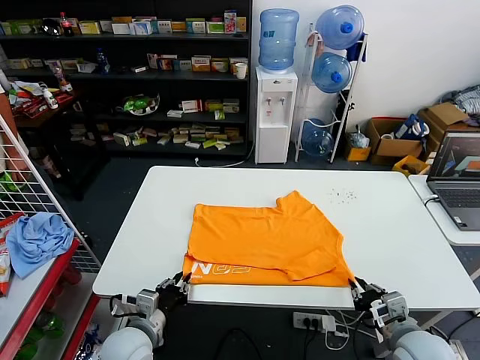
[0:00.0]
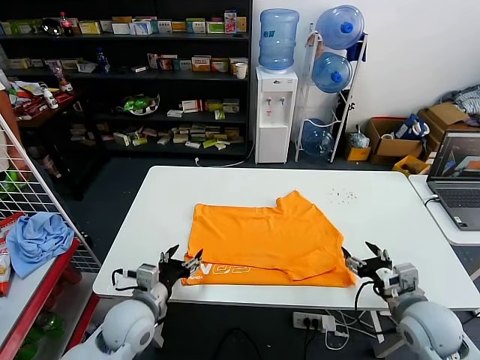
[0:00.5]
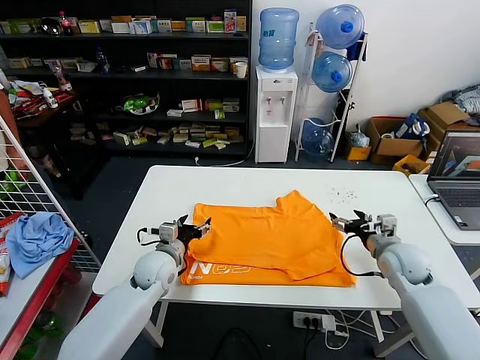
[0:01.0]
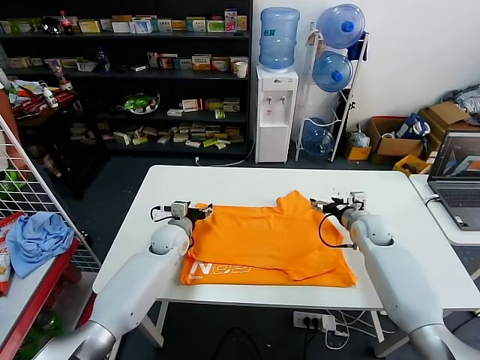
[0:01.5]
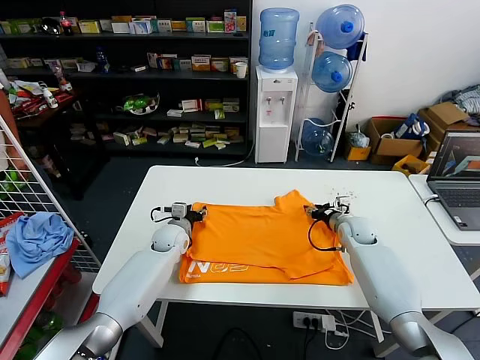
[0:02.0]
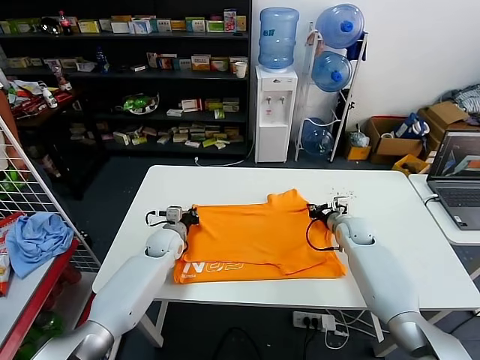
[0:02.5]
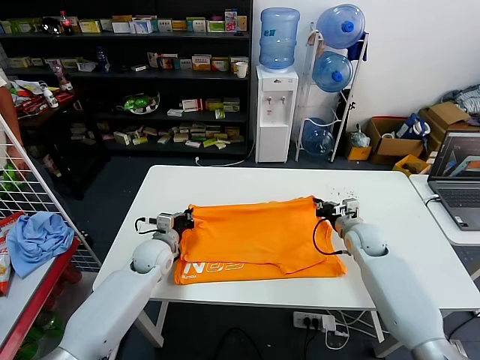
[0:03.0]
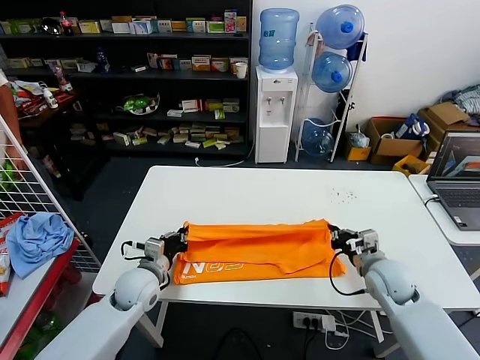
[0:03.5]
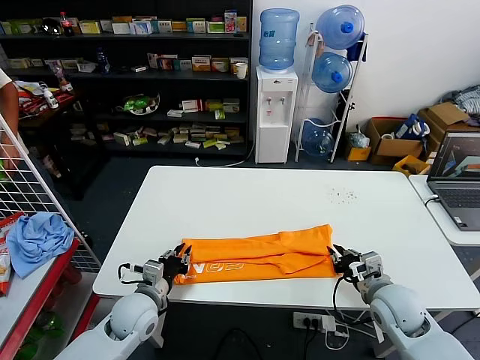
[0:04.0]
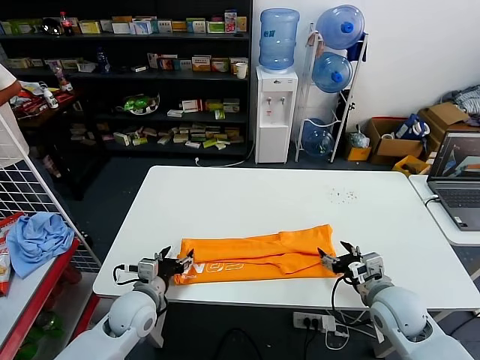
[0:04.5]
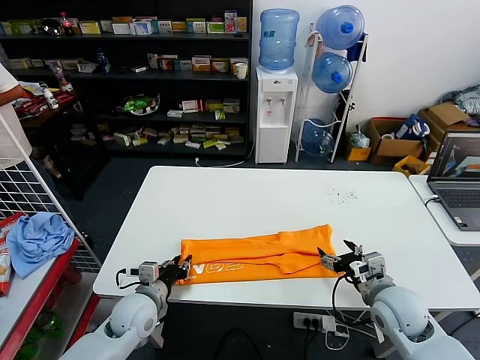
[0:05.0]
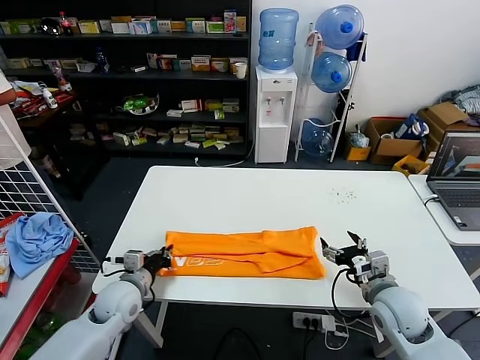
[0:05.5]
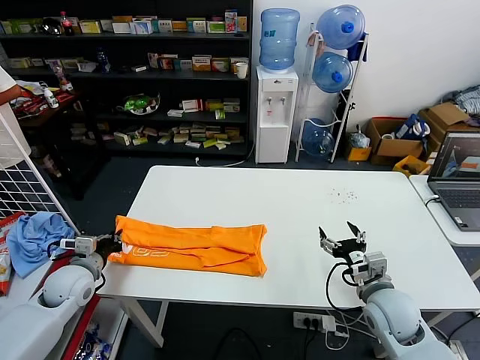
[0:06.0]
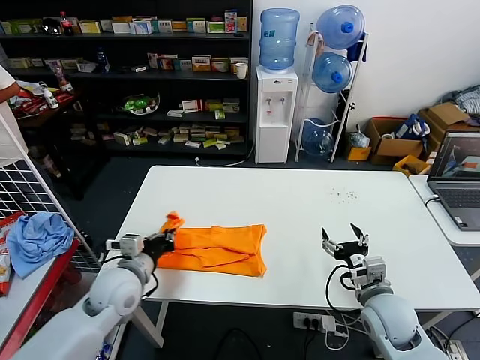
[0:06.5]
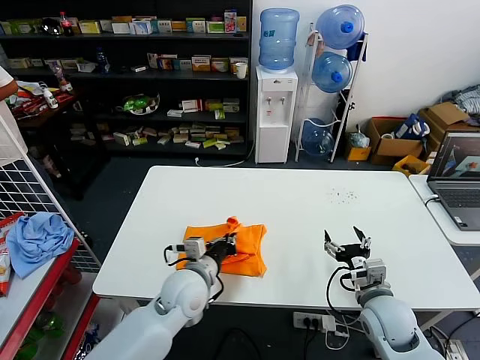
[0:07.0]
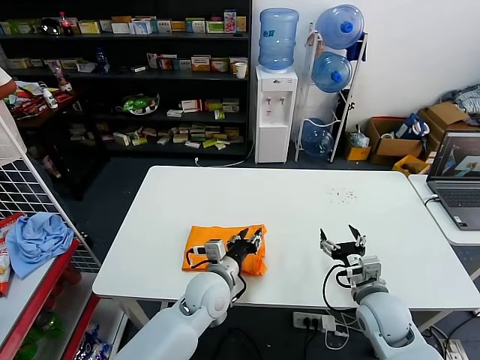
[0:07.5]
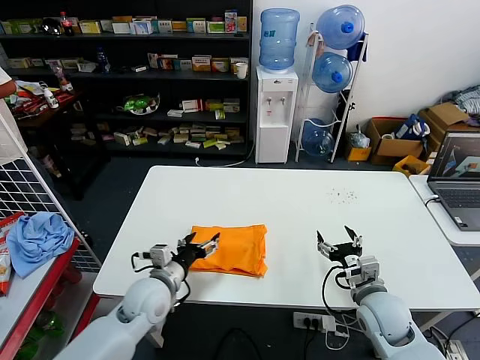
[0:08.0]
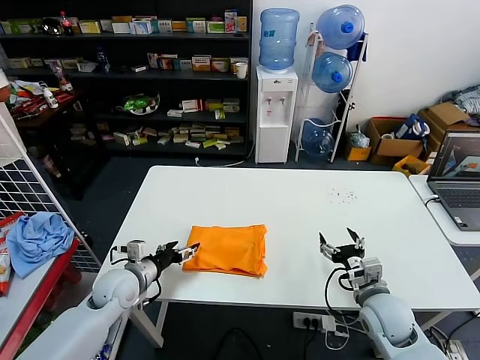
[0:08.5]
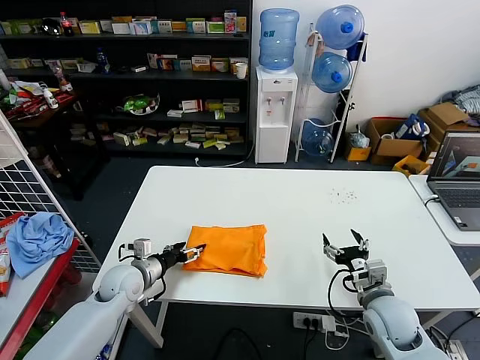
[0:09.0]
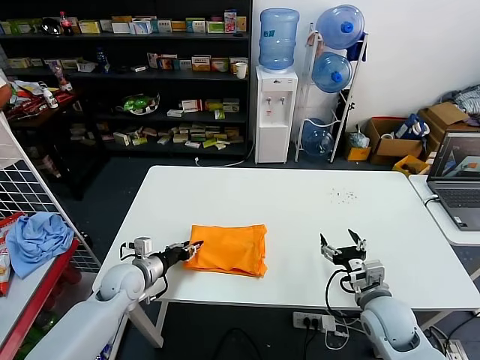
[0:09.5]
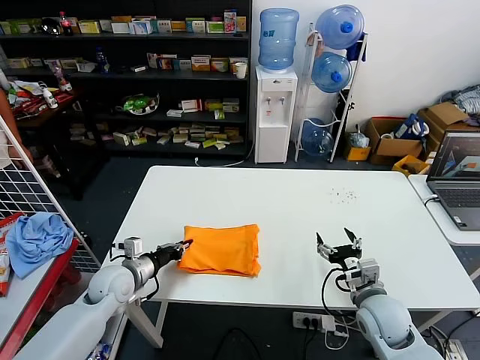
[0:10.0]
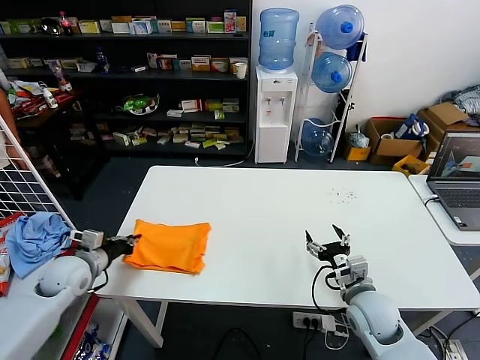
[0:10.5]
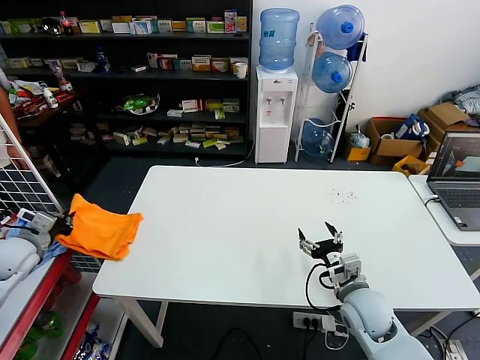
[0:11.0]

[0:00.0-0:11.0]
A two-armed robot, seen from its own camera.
Task of the whole recording: fold and organize the clothes.
Step, 0:00.5 to 0:02.0: use both grippers simultaneously to clamp the upper edge of the clothing fabric.
Step, 0:02.5 to 0:04.0: use both grippers to drag the upper edge of the fabric backward and fold it over the lower edge.
Step, 0:04.5 to 0:05.0: use the left gripper to clamp the left edge of the fabric.
Step, 0:05.5 to 0:07.5: use the left gripper to drag the left edge of the fabric to the left and folds it over the right edge.
0:00.0 to 0:02.0: Both grippers travel together forward, approximately 30 cm. The left gripper opens, then closes once more. The right gripper opens, then closes again.
0:02.0 to 0:03.5: Both grippers move backward, about 15 cm. The left gripper closes. Meanwhile the right gripper closes its fingers.
0:03.5 to 0:05.5: The right gripper shifts some 5 cm backward, and opens. Meanwhile the left gripper opens, then closes again.
0:05.5 to 0:07.5: The left gripper goes approximately 20 cm to the right, and opens.
0:07.5 to 0:09.0: The left gripper travels to the left by roughly 20 cm, and opens its fingers.
0:09.0 to 0:11.0: The left gripper moves to the left and upward, roughly 25 cm, and closes its fingers.

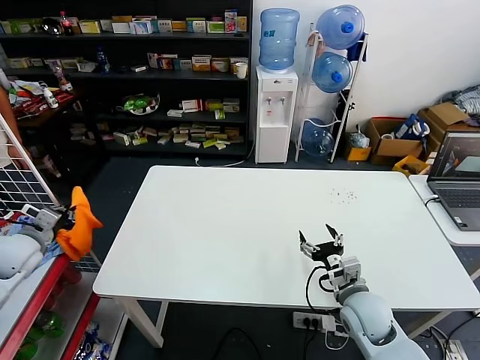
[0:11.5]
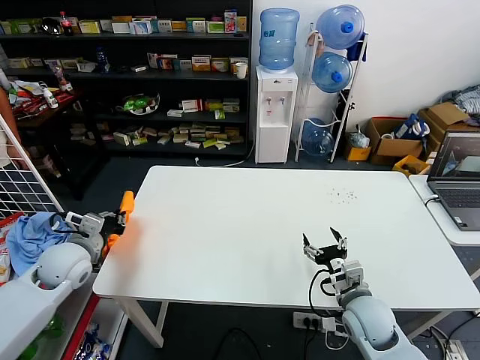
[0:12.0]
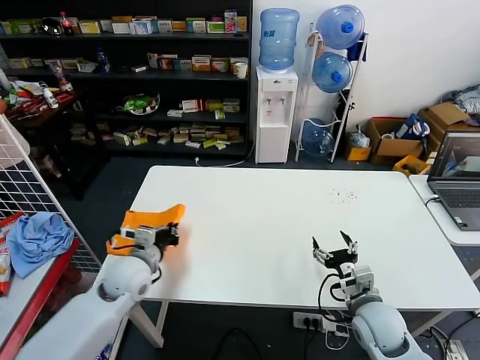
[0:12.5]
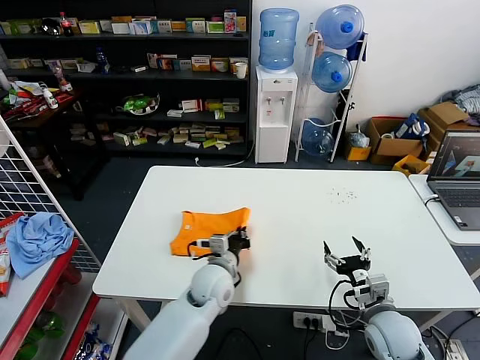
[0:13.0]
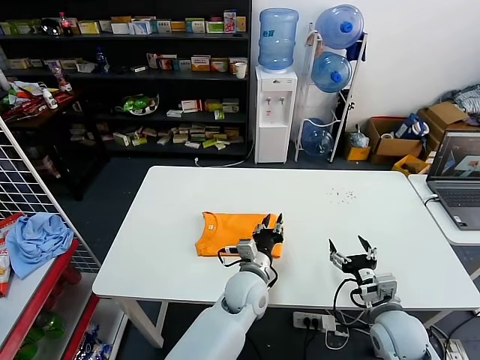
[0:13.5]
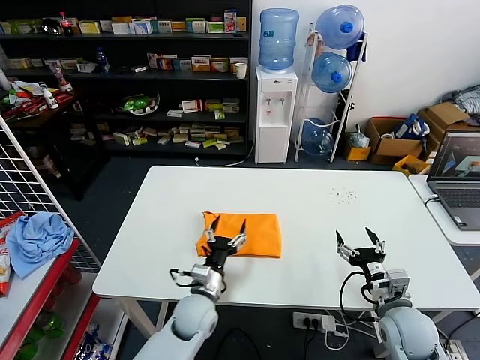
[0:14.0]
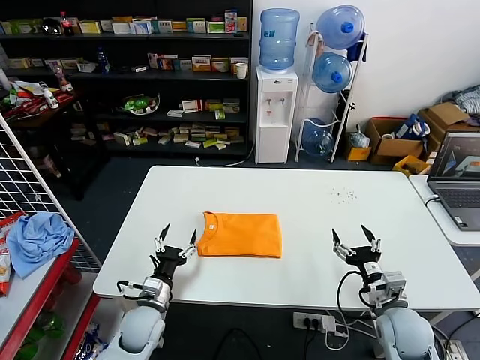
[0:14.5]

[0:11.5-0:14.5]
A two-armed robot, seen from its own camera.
Task of the whole recording: fold and organize the clothes.
0:11.5 to 0:13.0: The right gripper moves roughly 5 cm. Meanwhile the left gripper shifts some 40 cm to the right.
0:13.0 to 0:14.5: The left gripper travels to the left, downward and backward by approximately 20 cm, and opens up.

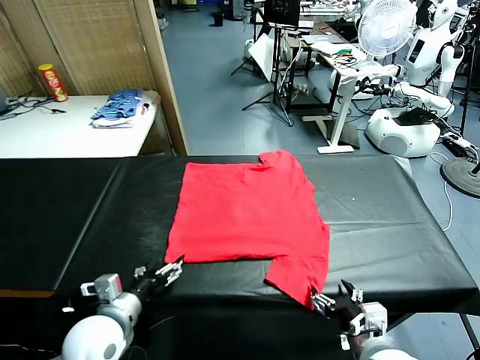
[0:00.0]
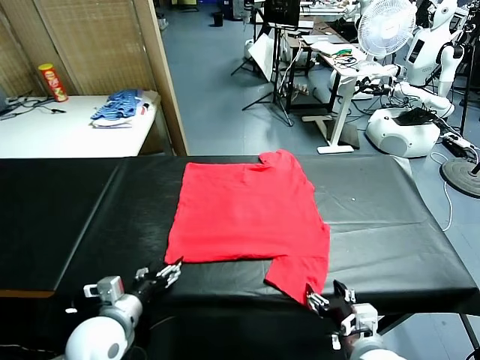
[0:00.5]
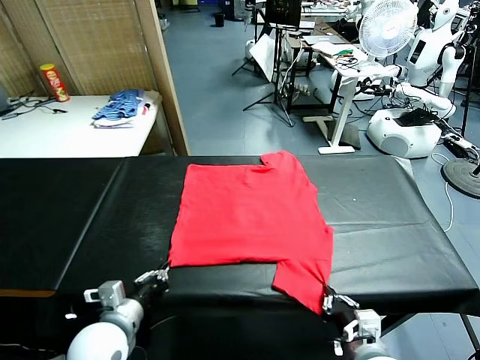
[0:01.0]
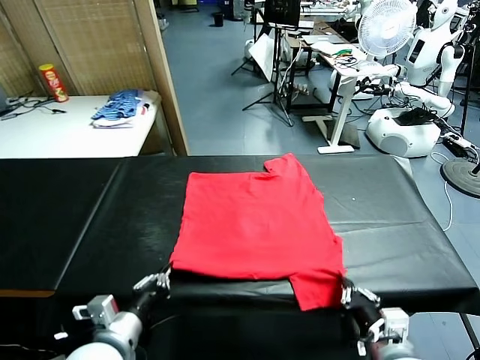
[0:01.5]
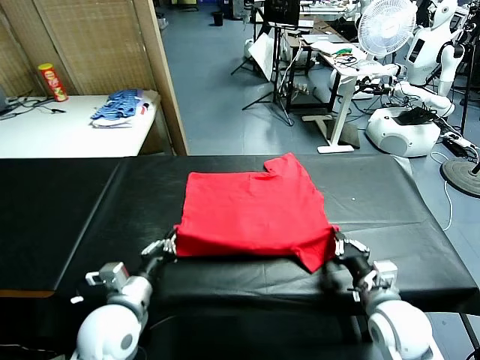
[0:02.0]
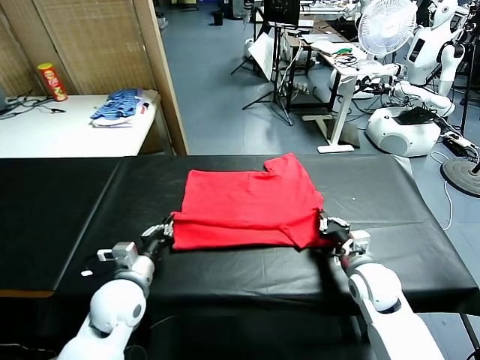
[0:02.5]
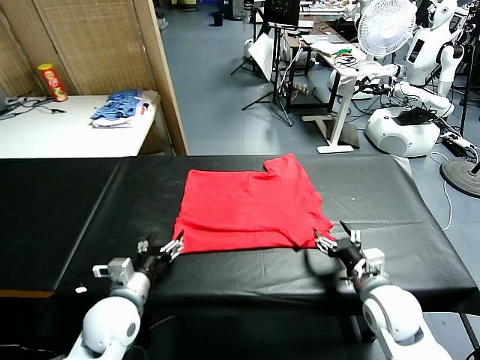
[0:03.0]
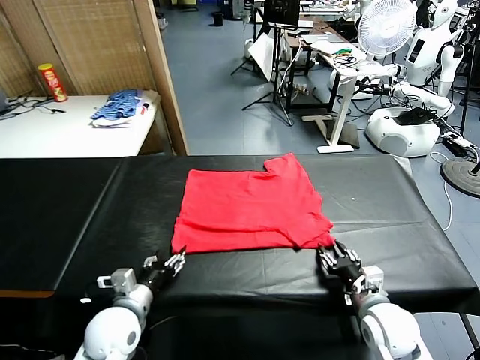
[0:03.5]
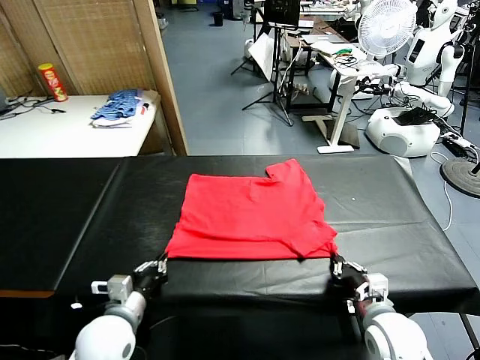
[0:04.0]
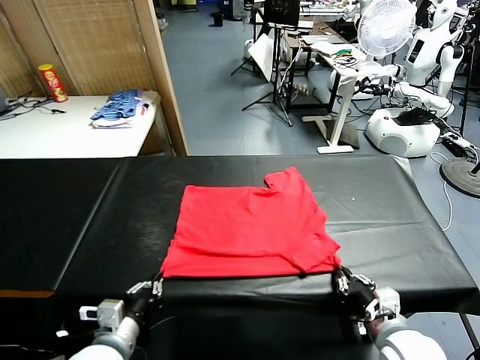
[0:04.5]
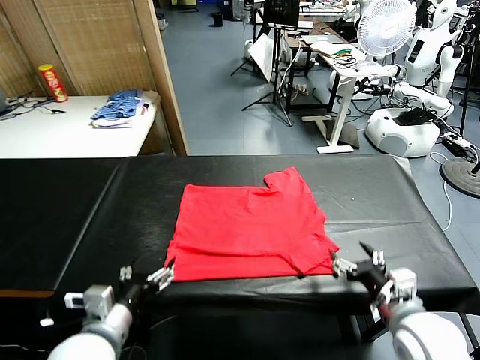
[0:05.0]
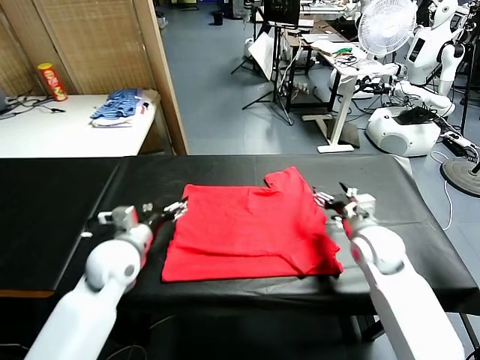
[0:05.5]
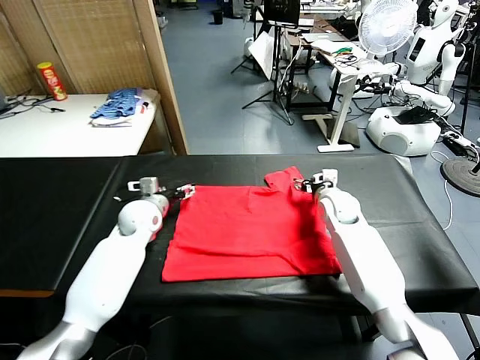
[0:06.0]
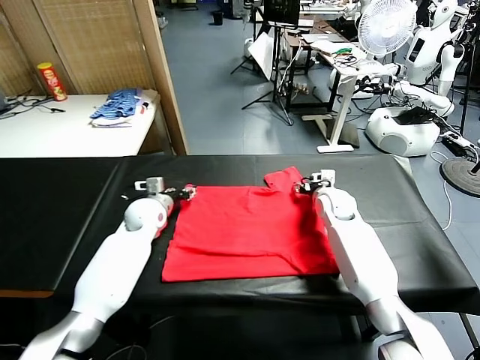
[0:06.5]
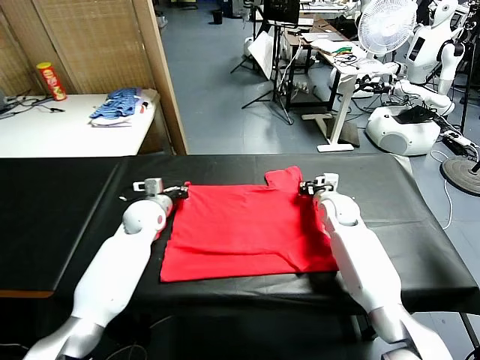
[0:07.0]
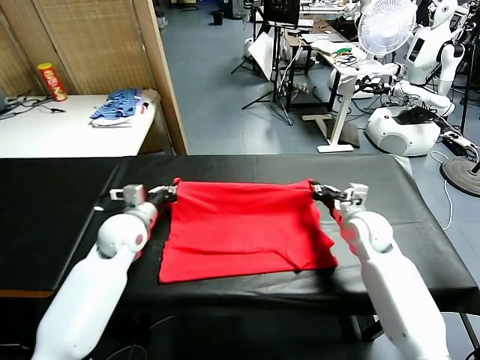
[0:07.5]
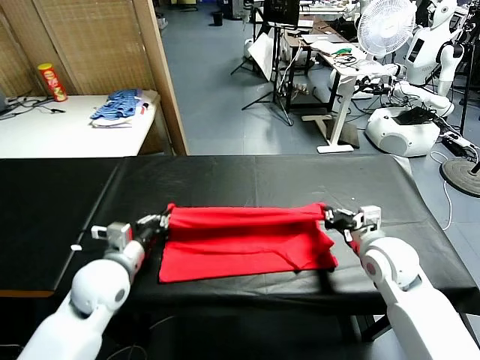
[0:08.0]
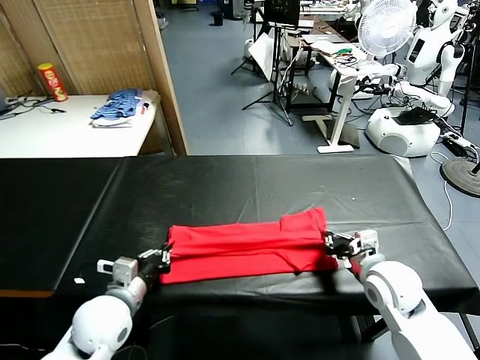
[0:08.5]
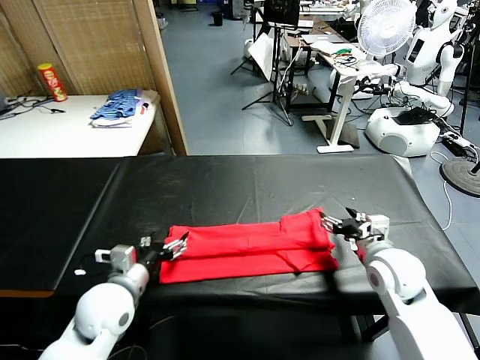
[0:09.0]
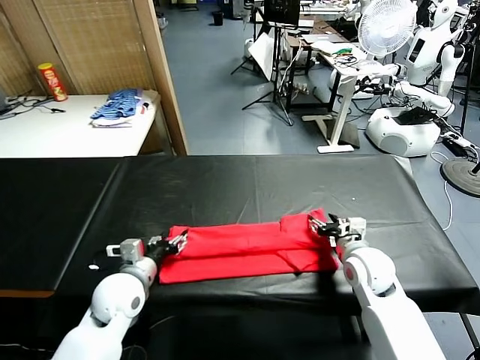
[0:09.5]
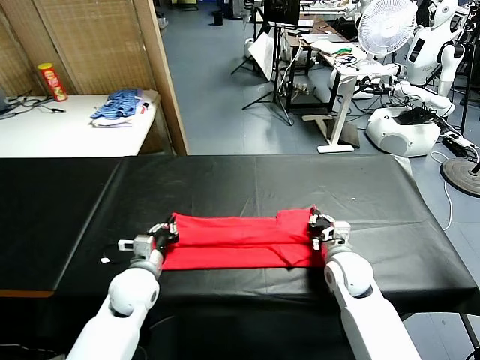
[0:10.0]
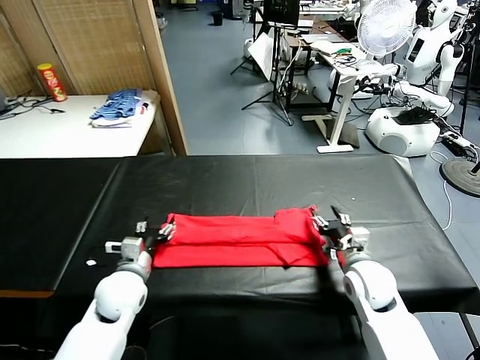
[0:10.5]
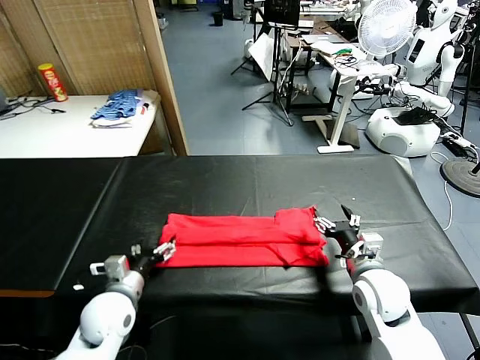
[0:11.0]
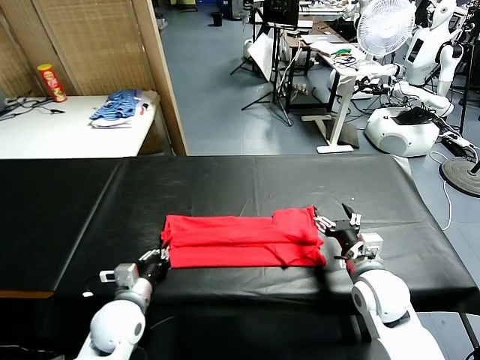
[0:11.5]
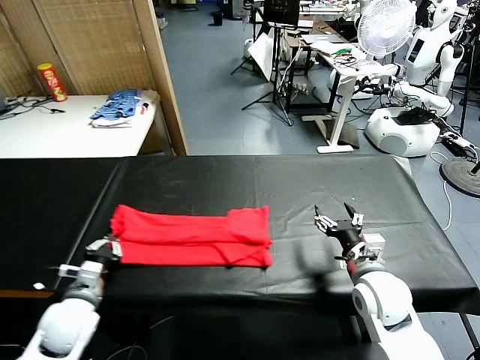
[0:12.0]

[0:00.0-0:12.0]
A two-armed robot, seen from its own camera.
Task of the whole recording: fold and organize the clothes.
Step, 0:00.0 to 0:01.0: use both grippers simultaneously to clamp the lower edge of the clothing fabric.
Step, 0:01.5 to 0:02.5: use both grippers to drag the lower edge of the fabric forward and fold it over the upper edge.
Step, 0:03.0 to 0:04.5: Drag the clothes downward with both gripper.
Step, 0:05.0 to 0:07.0: use both grippers simultaneously to clamp the upper edge of the clothing fabric.
Step, 0:07.5 to 0:08.5: use both grippers to drag the upper edge of the fabric backward and fold it over the lower edge.
Step, 0:09.0 to 0:11.5: use the left gripper to clamp the left edge of the fabric.
0:02.0 to 0:04.0: The right gripper shifts about 10 cm backward, and opens and closes again. The left gripper moves approximately 5 cm, and opens and closes again.
0:04.0 to 0:06.0: Both grippers move forward, approximately 30 cm. The left gripper opens. The right gripper opens up.
0:06.0 to 0:08.0: Both grippers move backward, about 20 cm. The left gripper closes. The right gripper closes its fingers.
0:08.0 to 0:10.0: The grippers both shift downward by some 10 cm. The left gripper opens and closes again; the right gripper opens and closes again.
0:10.0 to 0:12.0: The right gripper travels backward and upward by some 10 cm, and opens its fingers, while the left gripper shifts about 10 cm to the left and backward, and opens, then closes again.
